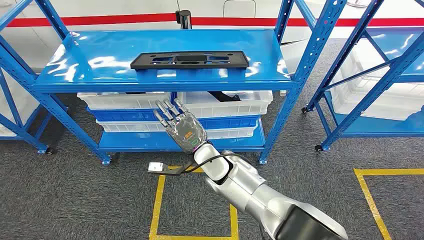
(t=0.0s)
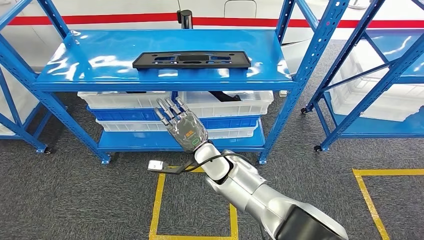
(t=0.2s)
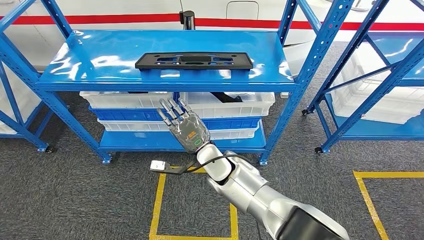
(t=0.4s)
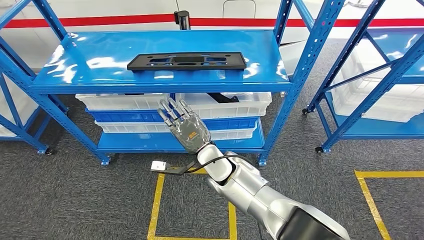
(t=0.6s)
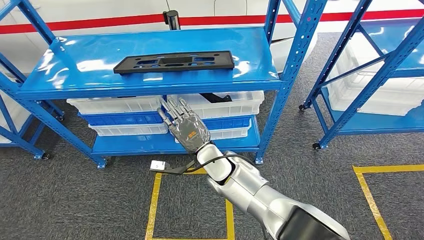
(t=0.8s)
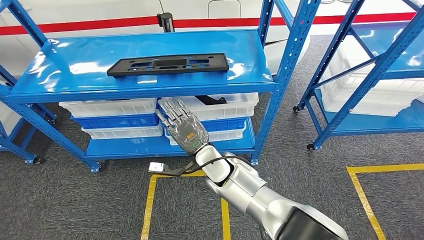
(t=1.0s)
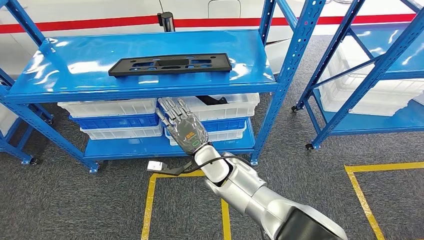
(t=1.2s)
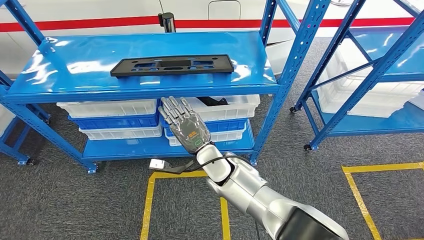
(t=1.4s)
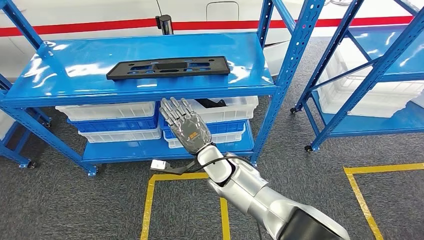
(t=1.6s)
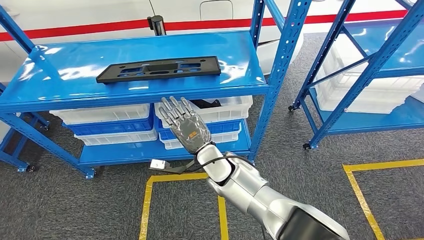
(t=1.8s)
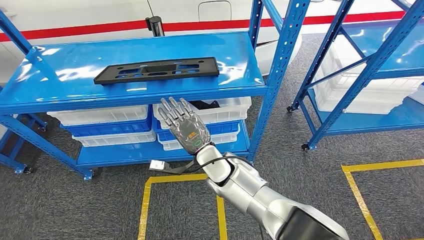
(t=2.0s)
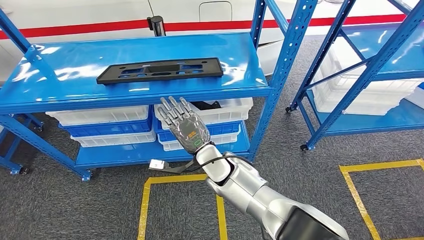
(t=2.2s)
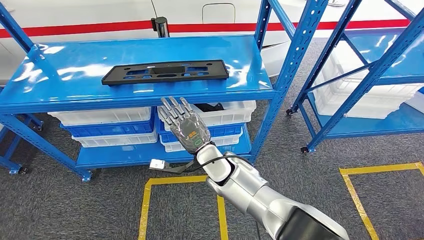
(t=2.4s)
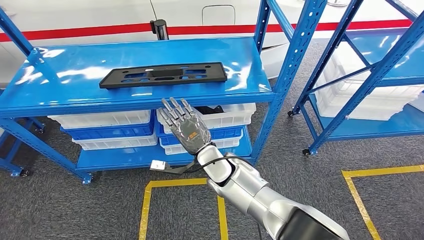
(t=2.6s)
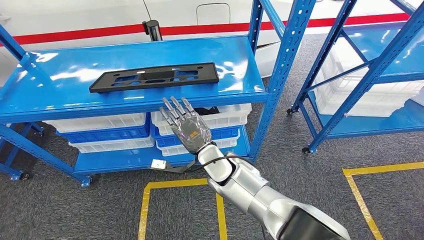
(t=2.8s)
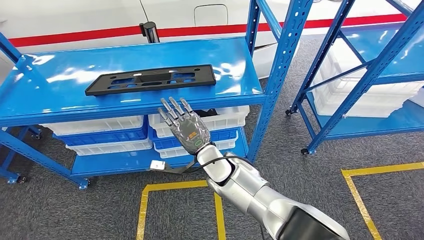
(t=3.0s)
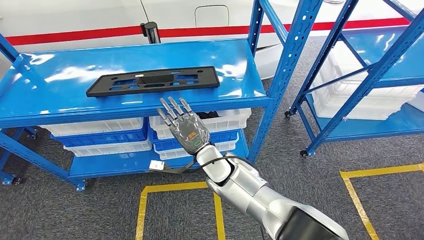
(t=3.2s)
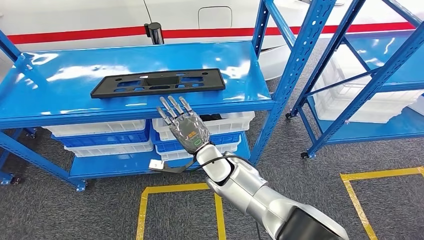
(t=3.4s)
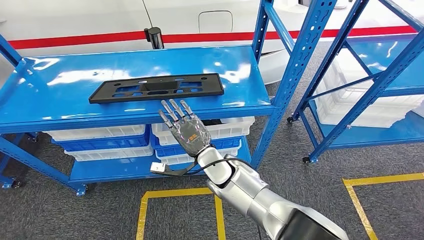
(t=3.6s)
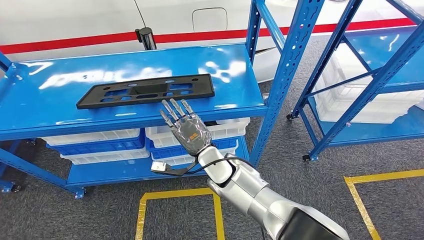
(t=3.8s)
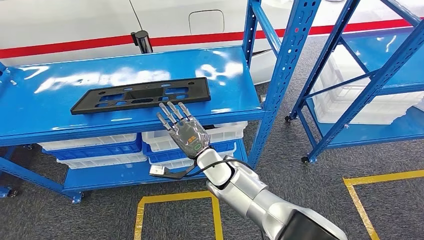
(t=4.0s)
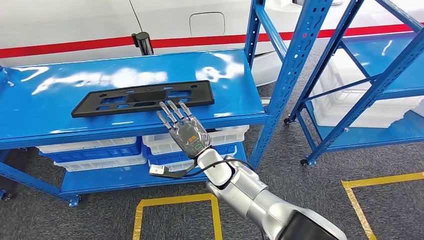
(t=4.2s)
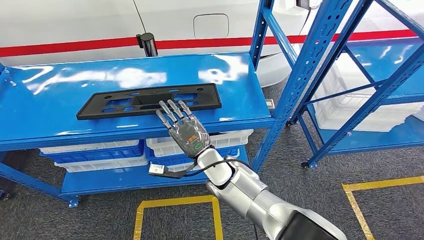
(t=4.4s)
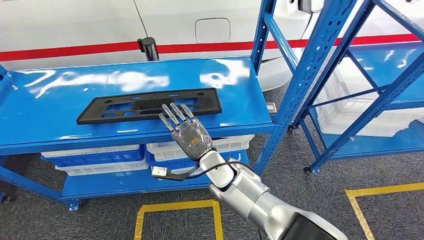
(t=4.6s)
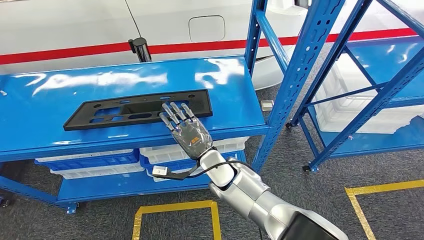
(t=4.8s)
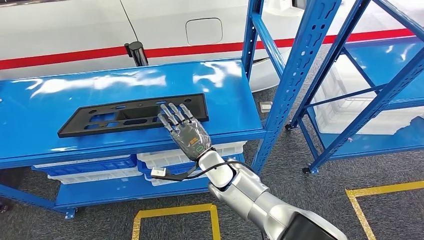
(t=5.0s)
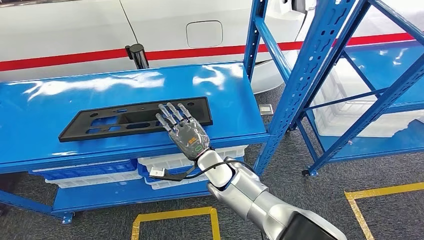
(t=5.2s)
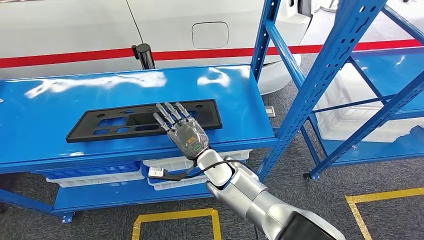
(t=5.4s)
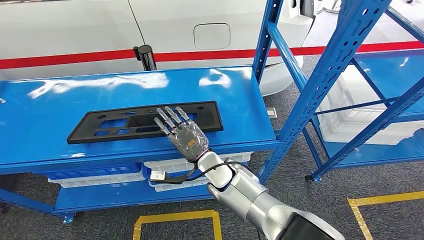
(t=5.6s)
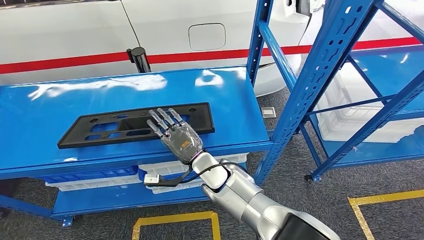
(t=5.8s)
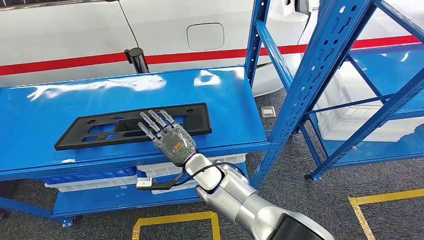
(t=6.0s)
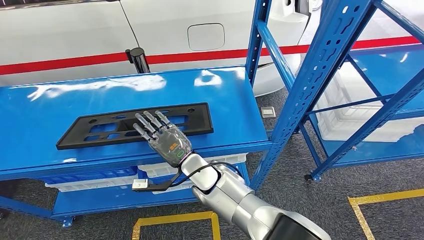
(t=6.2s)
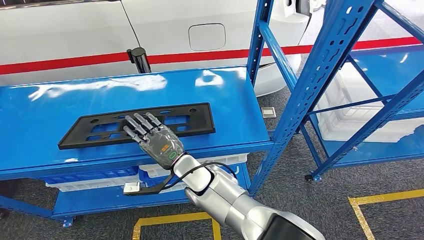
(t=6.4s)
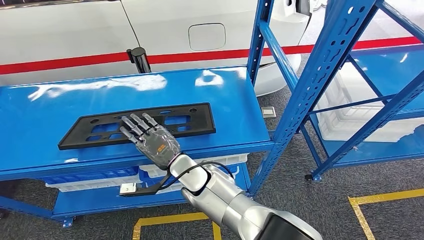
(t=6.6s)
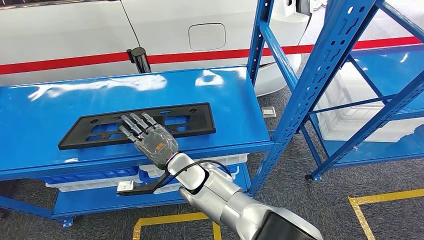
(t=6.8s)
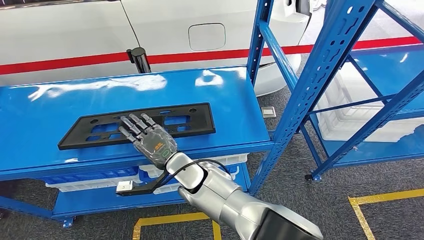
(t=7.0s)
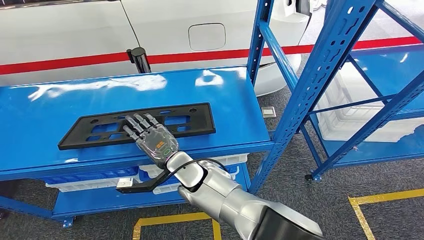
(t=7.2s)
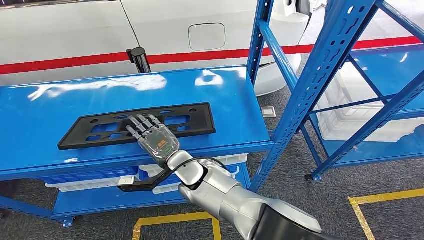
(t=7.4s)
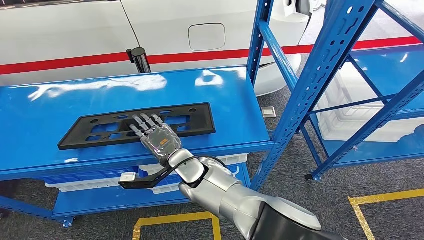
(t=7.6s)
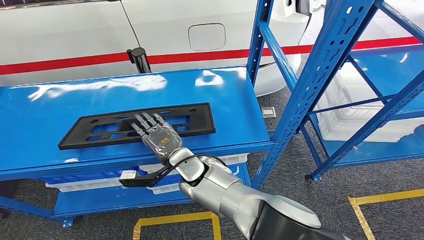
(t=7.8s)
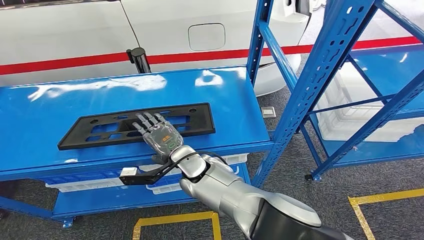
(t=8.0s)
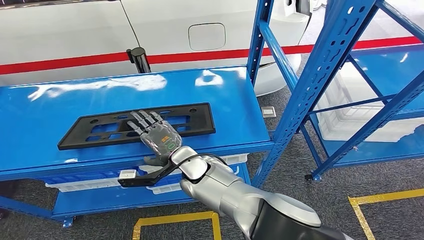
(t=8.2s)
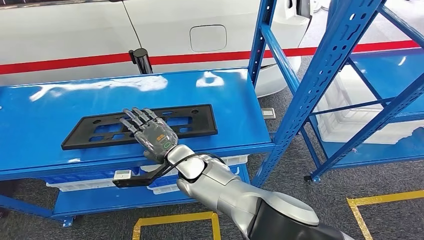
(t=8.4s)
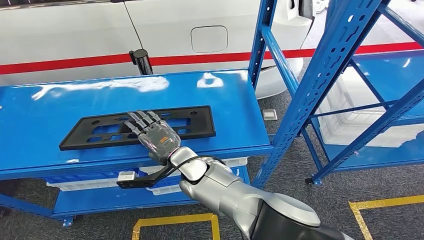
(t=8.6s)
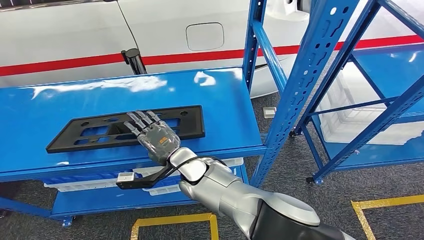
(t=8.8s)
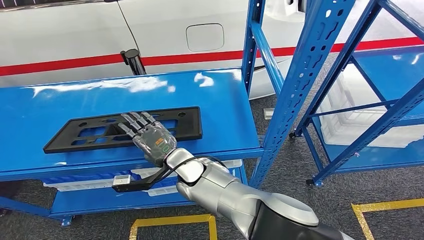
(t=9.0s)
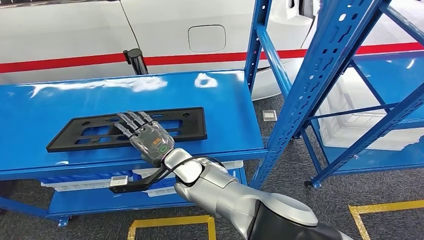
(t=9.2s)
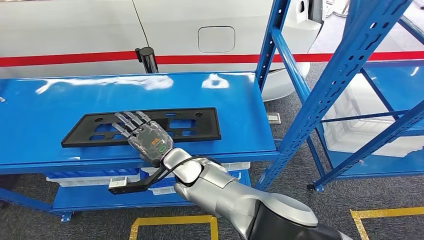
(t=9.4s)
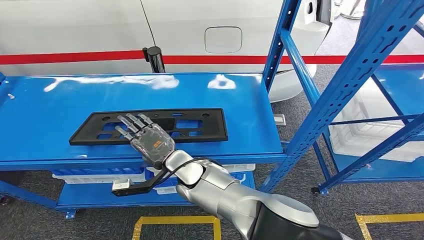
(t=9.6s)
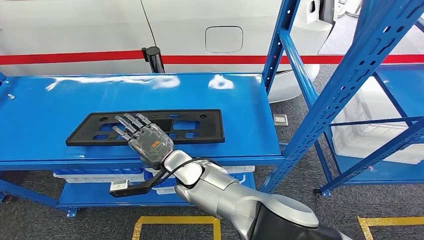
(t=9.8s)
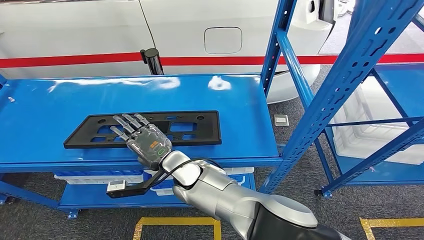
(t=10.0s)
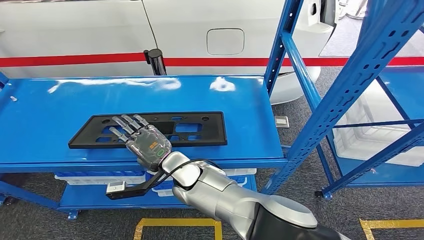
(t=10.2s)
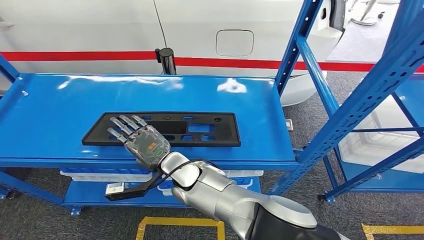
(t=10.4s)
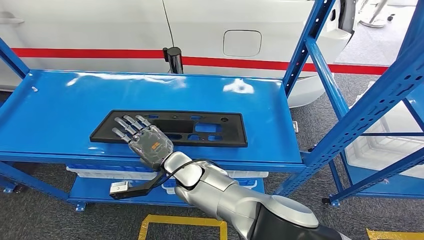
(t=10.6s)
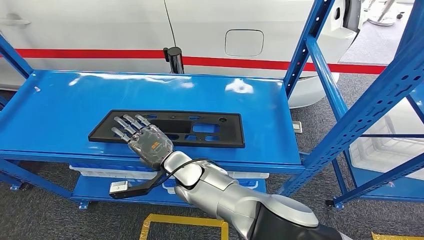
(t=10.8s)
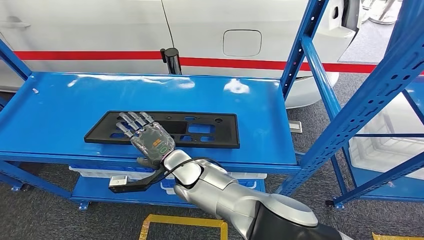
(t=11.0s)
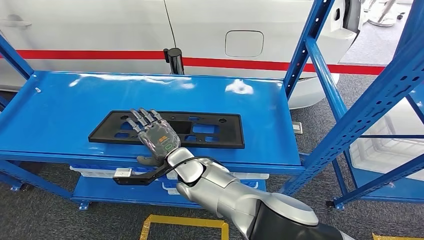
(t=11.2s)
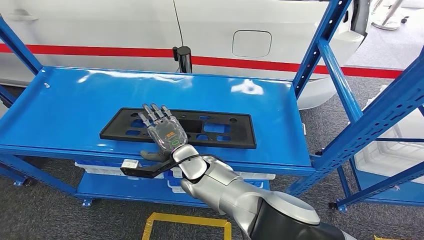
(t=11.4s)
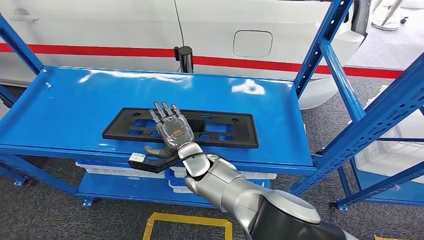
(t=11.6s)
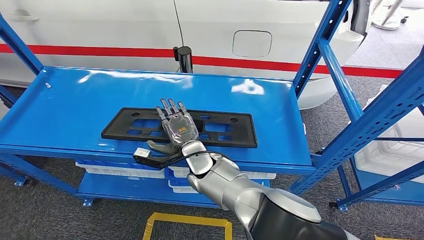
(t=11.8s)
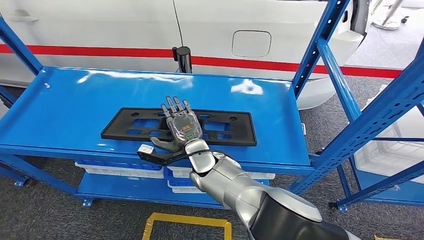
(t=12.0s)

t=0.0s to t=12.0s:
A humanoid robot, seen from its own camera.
t=6.0s to t=7.6s: The hands move only a little.

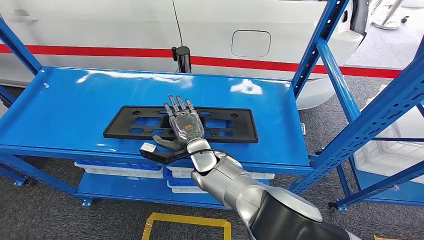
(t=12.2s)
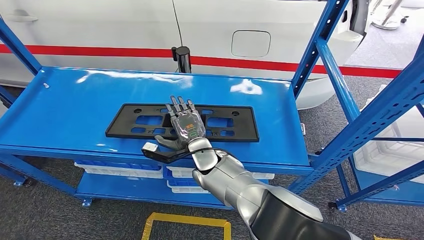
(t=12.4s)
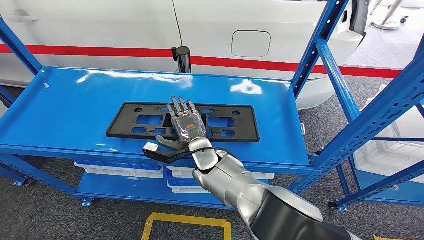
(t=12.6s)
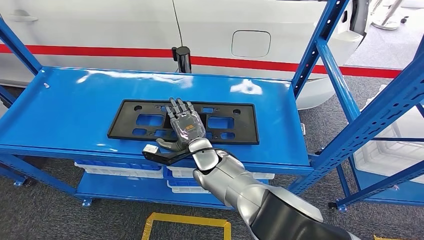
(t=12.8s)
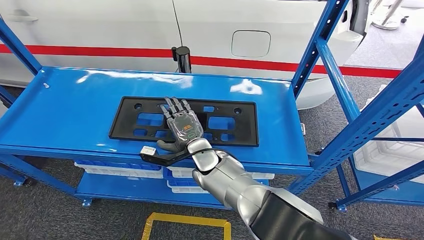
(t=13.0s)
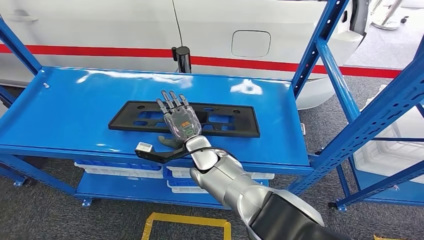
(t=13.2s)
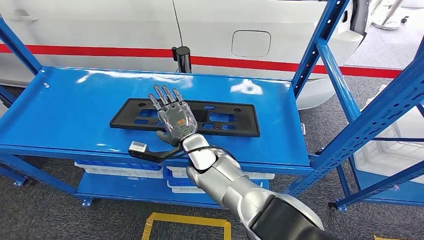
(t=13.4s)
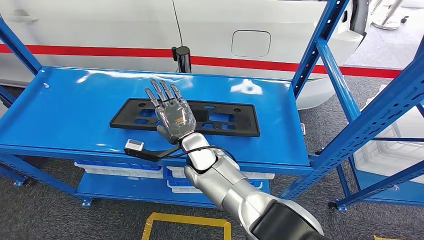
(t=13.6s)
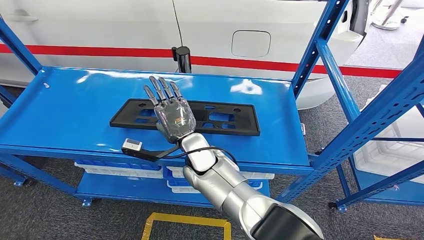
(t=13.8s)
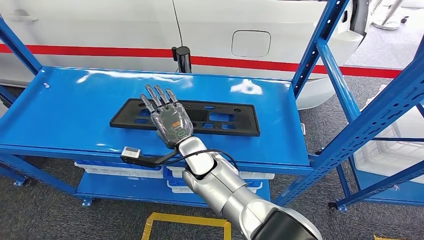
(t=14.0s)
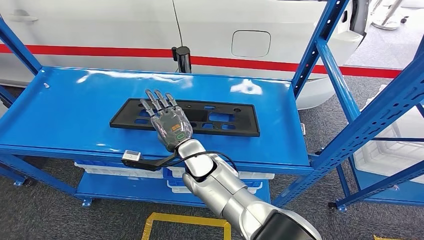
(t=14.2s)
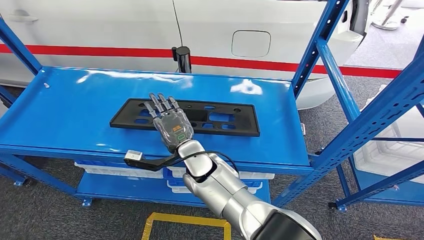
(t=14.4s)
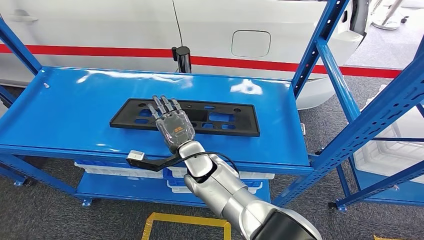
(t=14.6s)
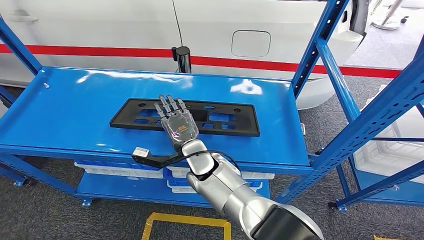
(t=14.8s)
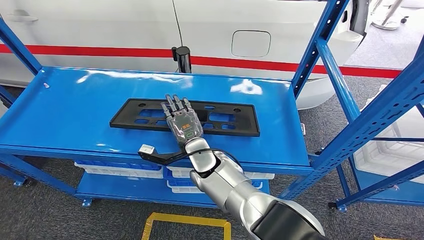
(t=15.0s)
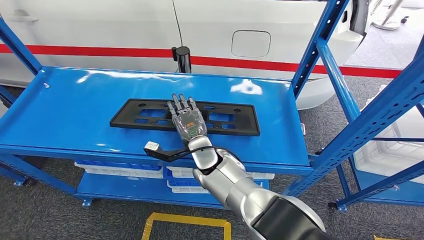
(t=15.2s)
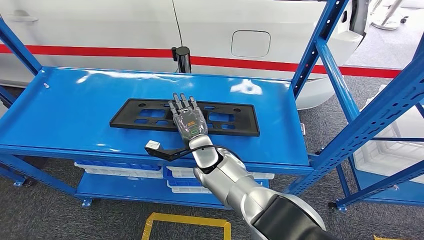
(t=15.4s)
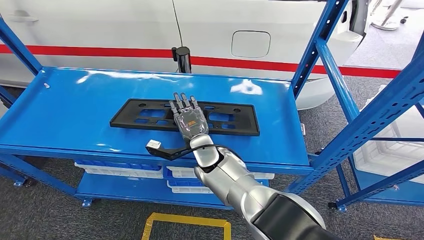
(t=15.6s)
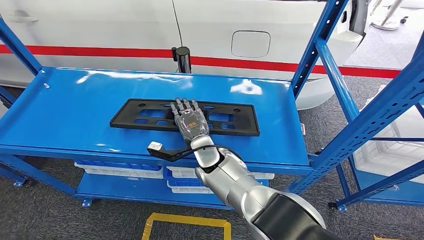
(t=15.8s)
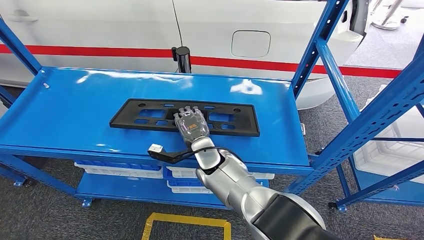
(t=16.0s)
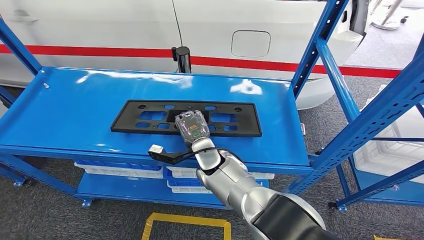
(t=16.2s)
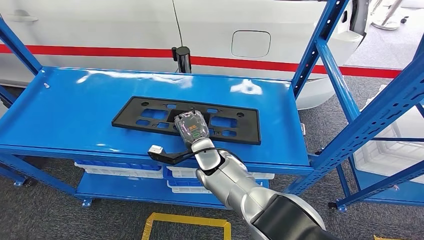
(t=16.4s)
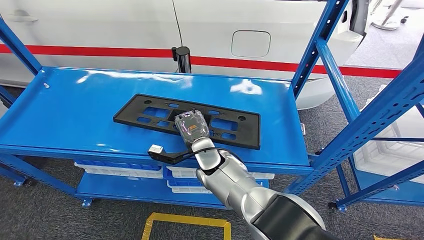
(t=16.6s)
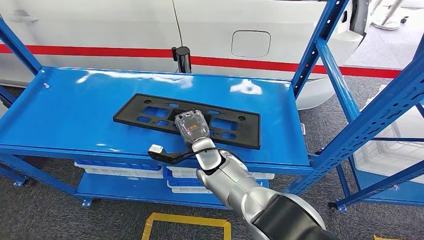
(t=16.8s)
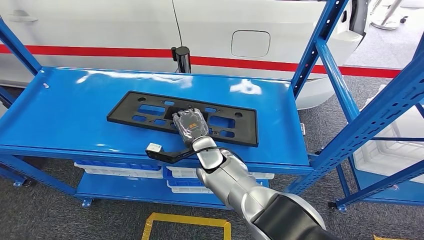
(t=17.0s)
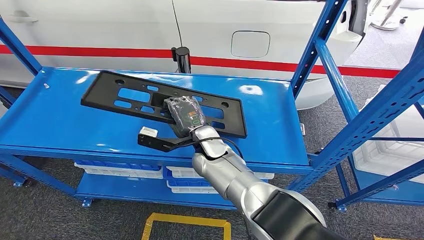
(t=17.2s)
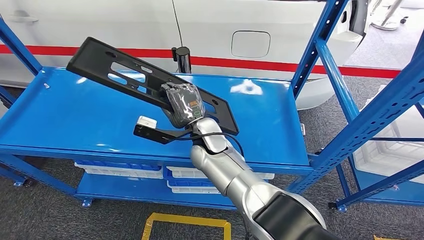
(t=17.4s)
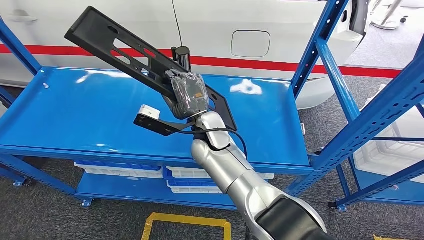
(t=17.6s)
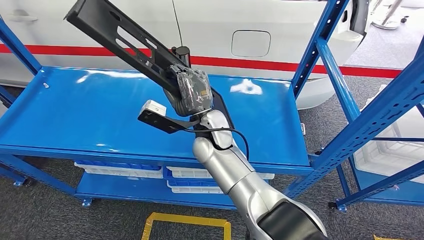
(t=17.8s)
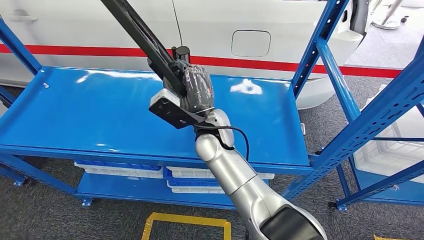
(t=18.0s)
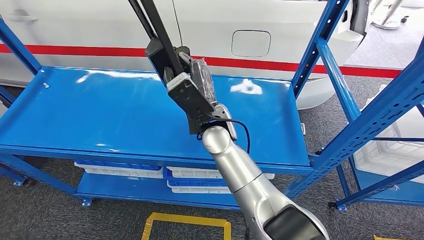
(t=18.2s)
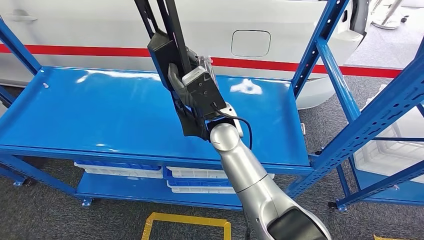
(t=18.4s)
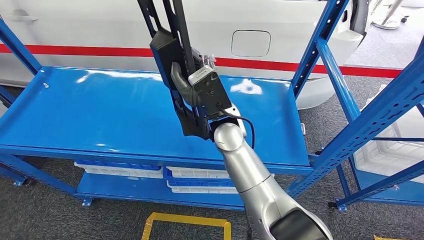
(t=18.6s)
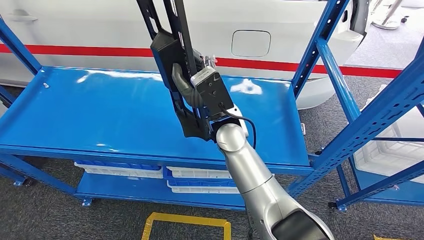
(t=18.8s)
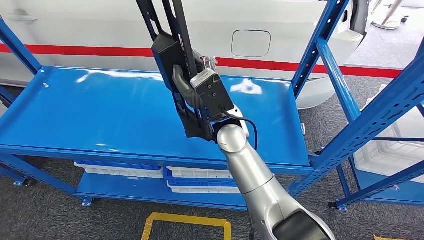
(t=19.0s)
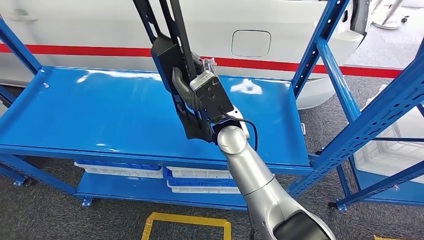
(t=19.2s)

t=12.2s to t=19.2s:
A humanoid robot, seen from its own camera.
t=12.2s to t=13.6s: The hands make only small movements.
t=13.6s to t=15.0s: There are only small adjustments of the hands.
t=15.0s to t=16.4s: The hands move only a little.
t=16.4s to t=17.8s: The right hand moves upward, some 10 cm.
